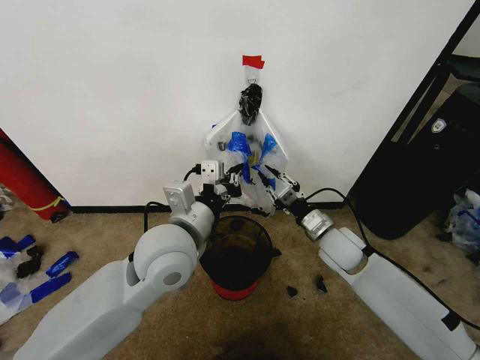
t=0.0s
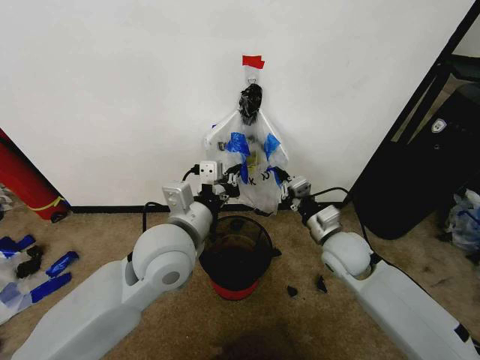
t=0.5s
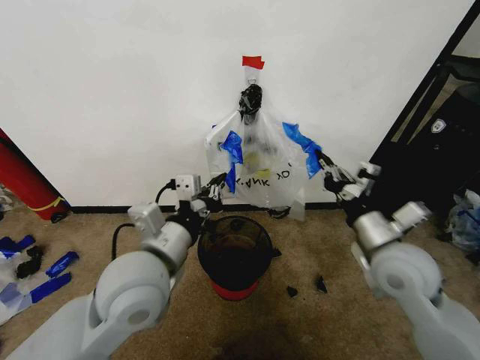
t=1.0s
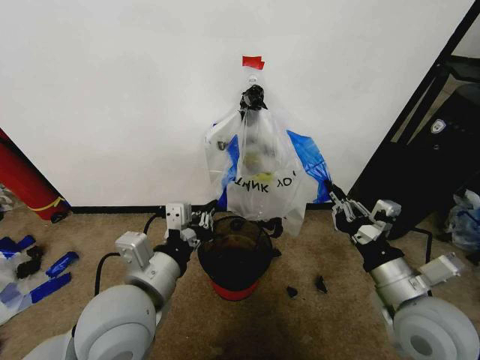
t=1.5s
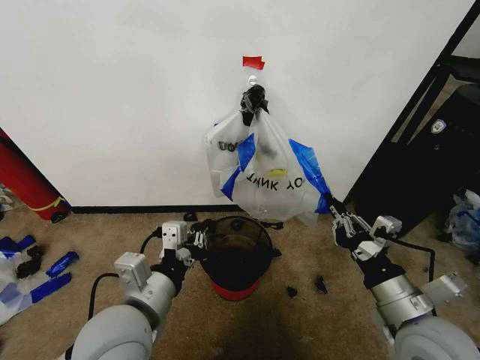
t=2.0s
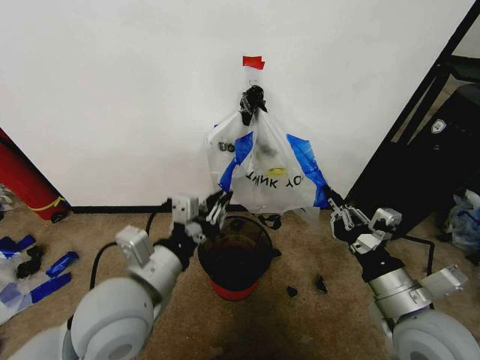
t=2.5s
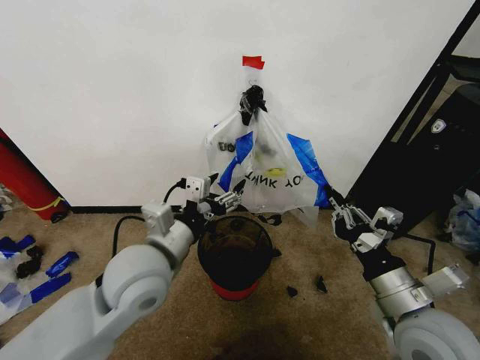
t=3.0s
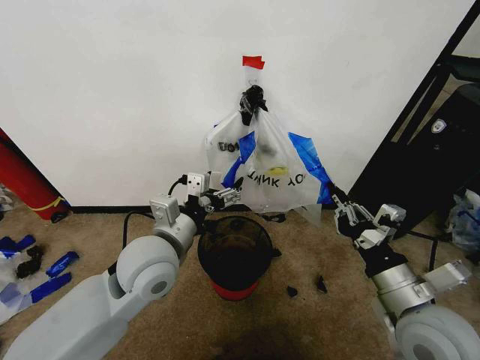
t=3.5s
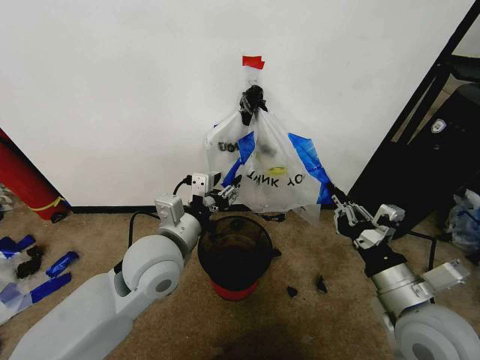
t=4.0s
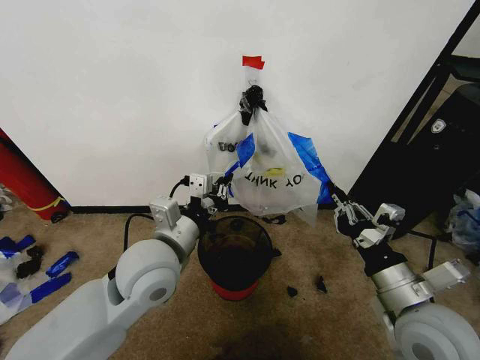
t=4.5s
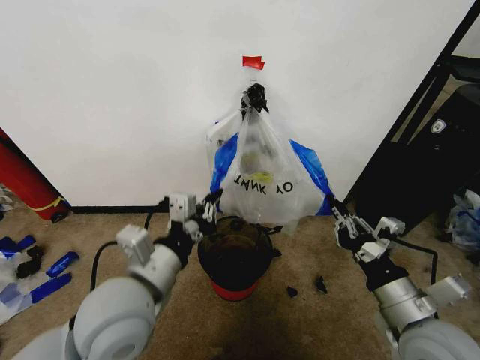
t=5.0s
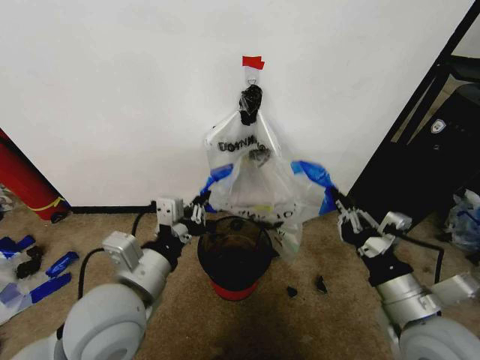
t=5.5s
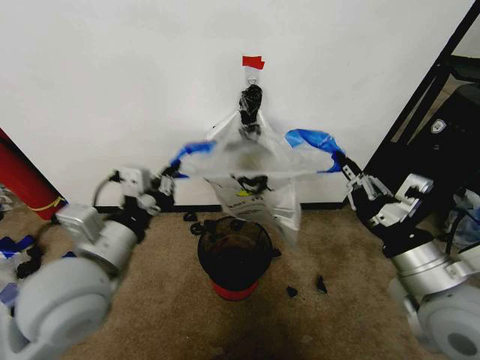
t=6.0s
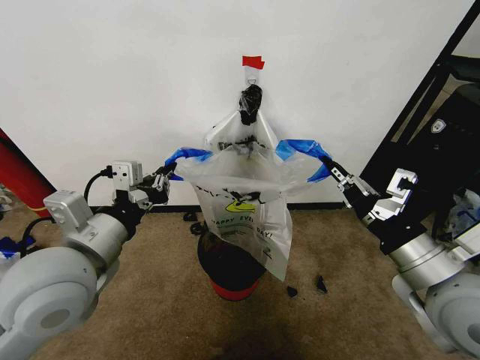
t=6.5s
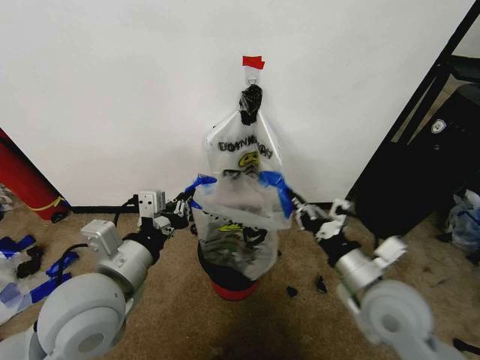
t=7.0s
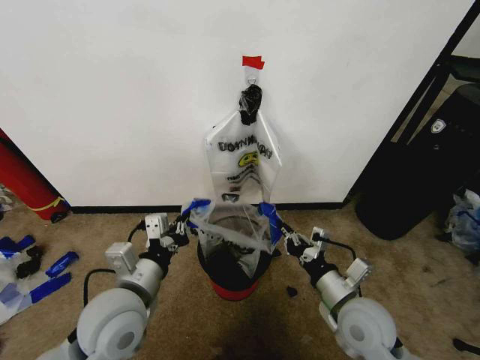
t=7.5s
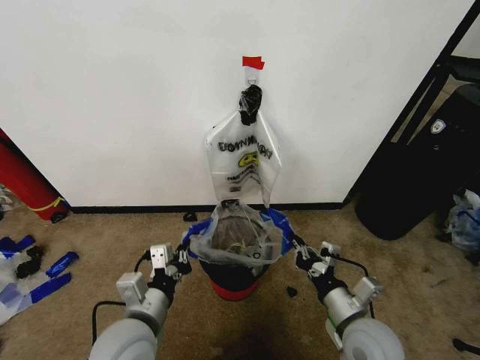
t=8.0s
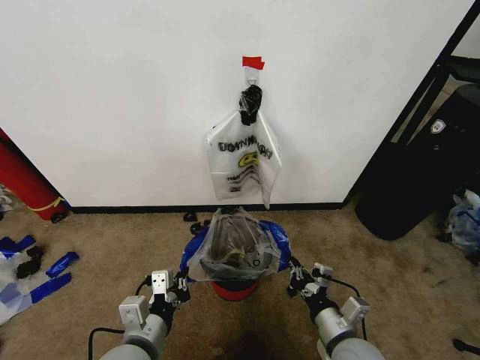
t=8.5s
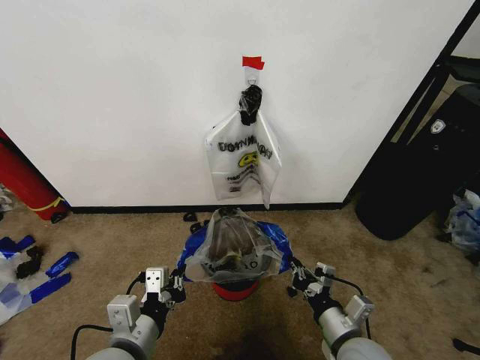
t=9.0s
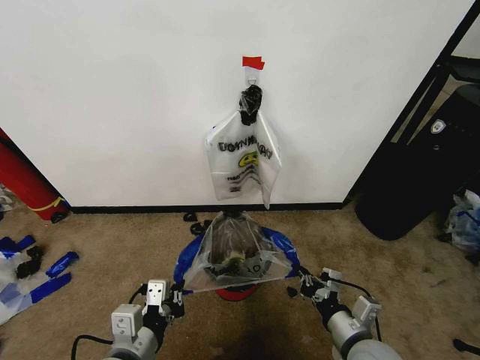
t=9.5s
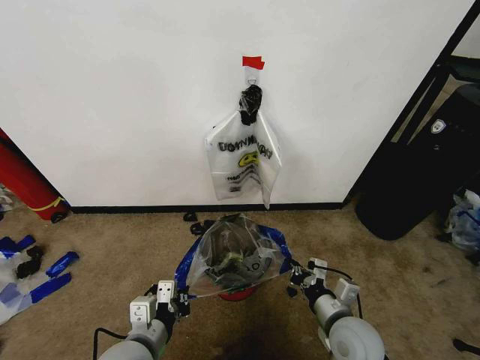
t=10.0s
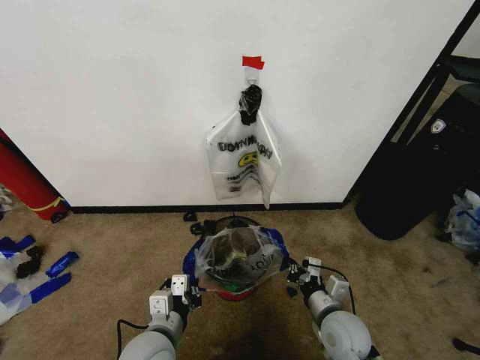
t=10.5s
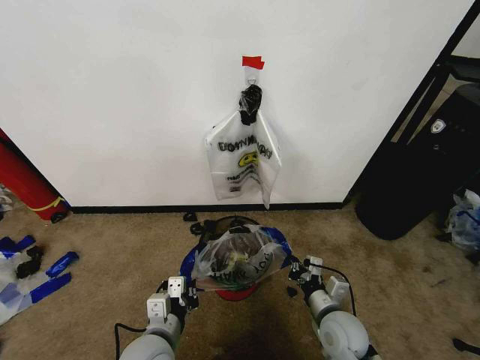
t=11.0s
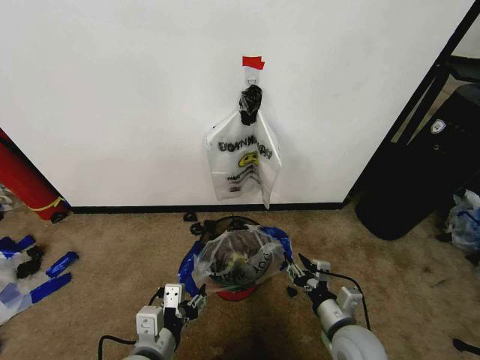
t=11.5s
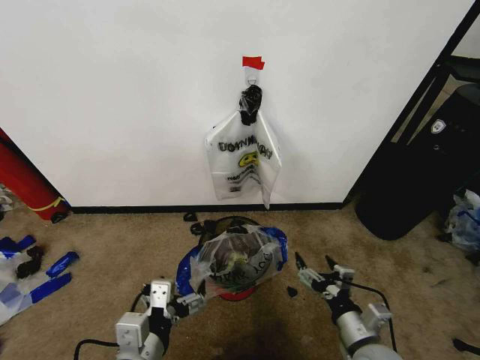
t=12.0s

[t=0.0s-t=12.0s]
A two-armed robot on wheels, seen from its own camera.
Task of the whole recording: Pick up the garbage bag from the wall and place it over the trash bin.
t=0.0s to t=2.0s: The right gripper shifts roughly 20 cm backward, while the left gripper shifts approximately 10 cm backward and to the left.
t=2.0s to t=4.0s: The left gripper heads forward, covering about 10 cm, and opens.
t=4.0s to t=6.0s: The left gripper heads backward, to the left and upward, covering roughly 10 cm, and closes; the right gripper is displaced upward by roughly 5 cm.
t=6.0s to t=8.0s: The two grippers go about 15 cm downward.
t=10.0s to t=12.0s: The left gripper changes place by approximately 5 cm, and opens up; the right gripper changes place by roughly 5 cm, and opens up.

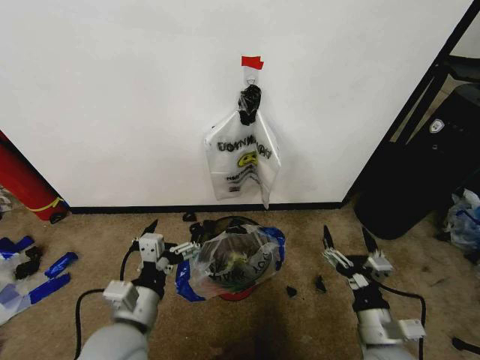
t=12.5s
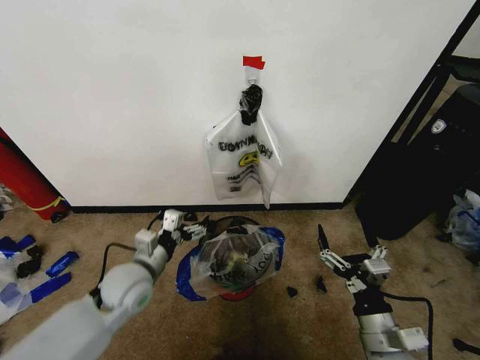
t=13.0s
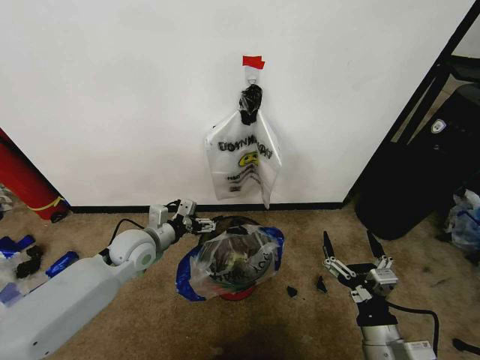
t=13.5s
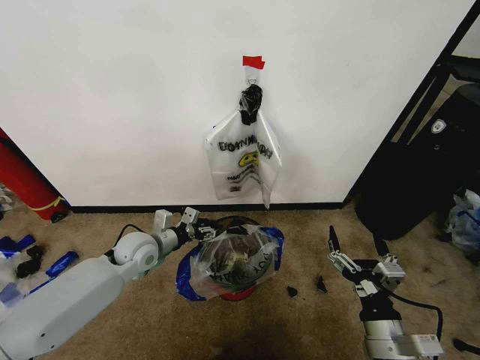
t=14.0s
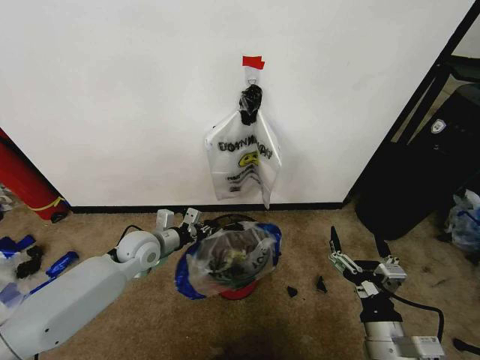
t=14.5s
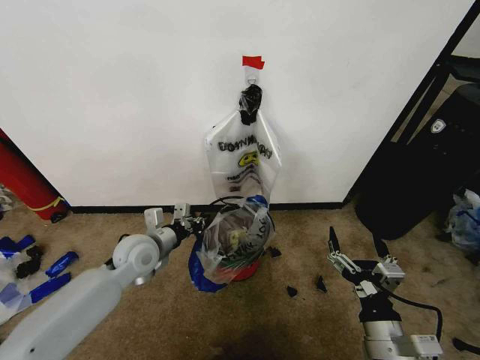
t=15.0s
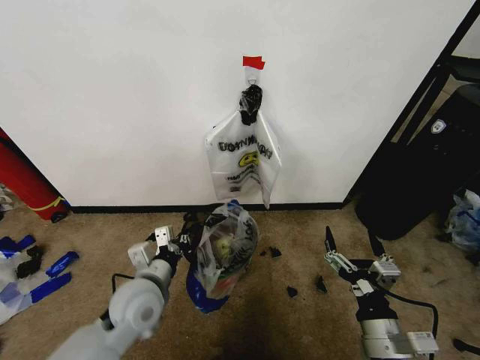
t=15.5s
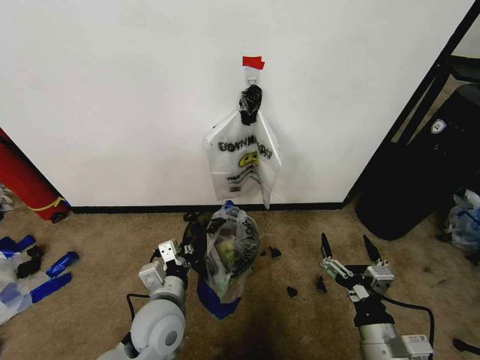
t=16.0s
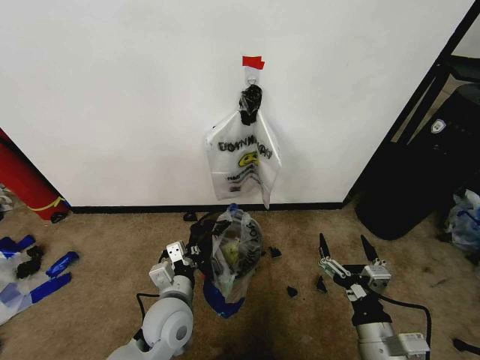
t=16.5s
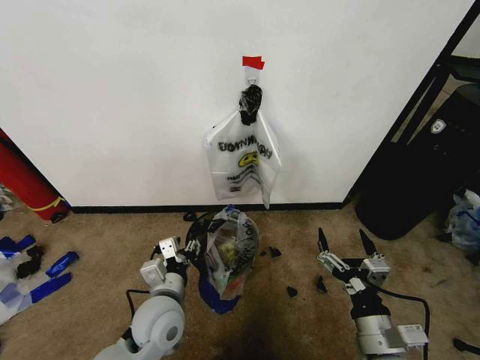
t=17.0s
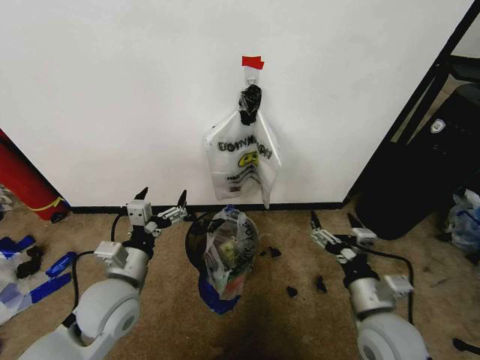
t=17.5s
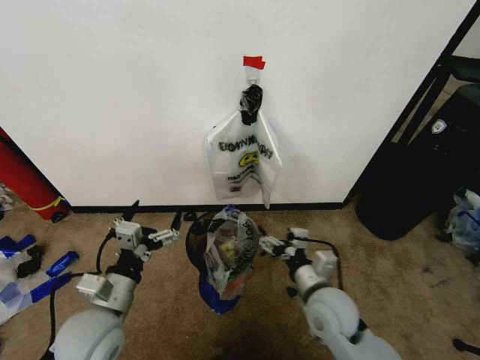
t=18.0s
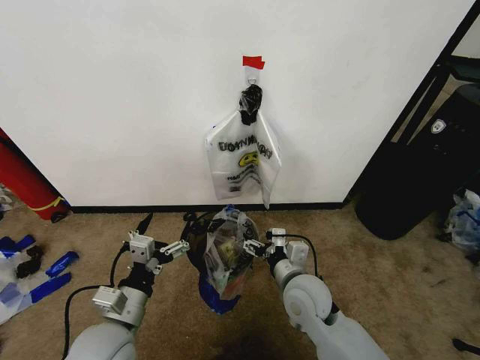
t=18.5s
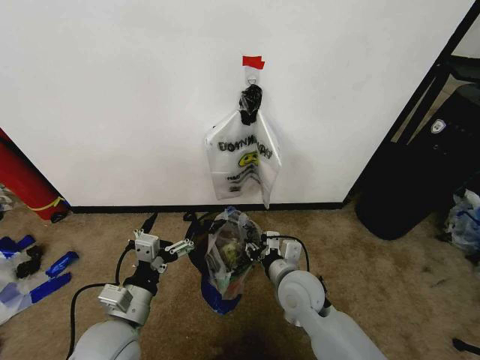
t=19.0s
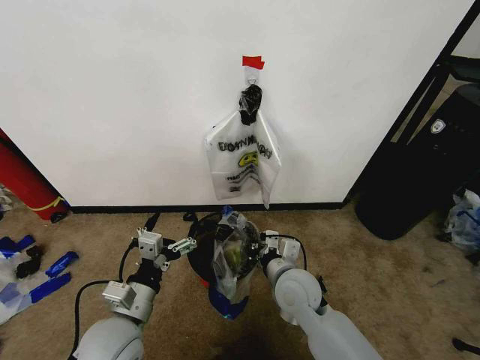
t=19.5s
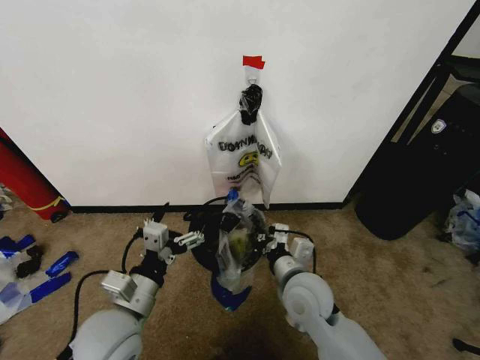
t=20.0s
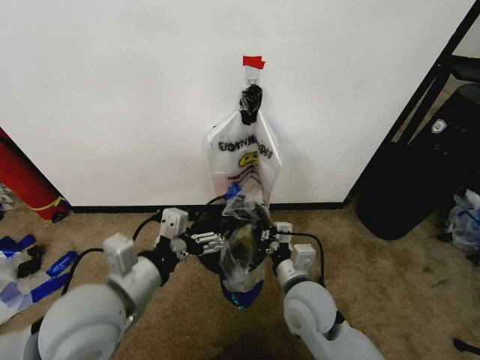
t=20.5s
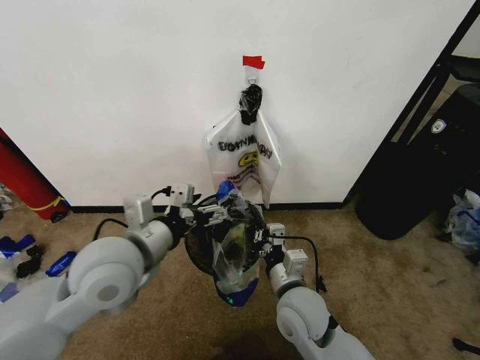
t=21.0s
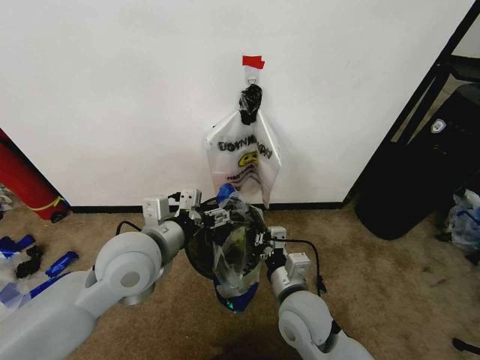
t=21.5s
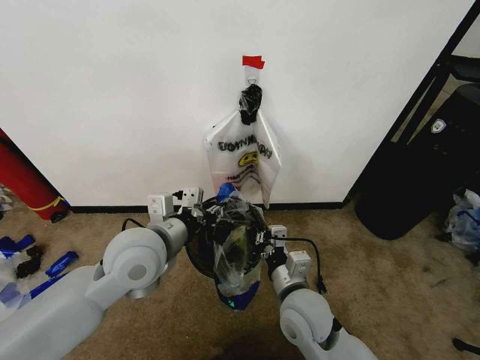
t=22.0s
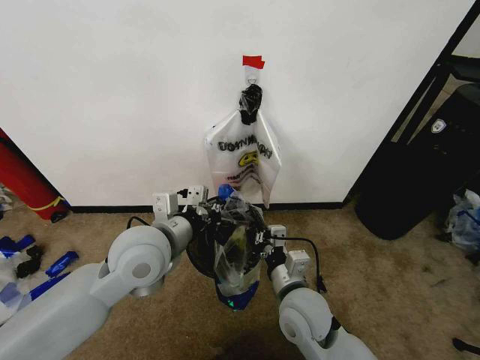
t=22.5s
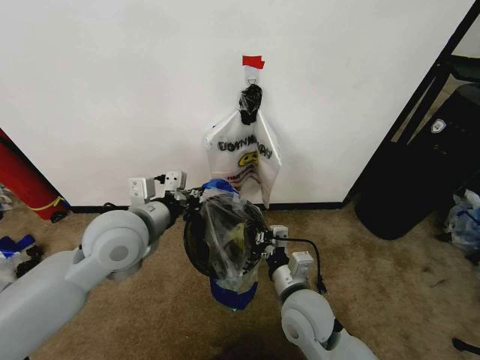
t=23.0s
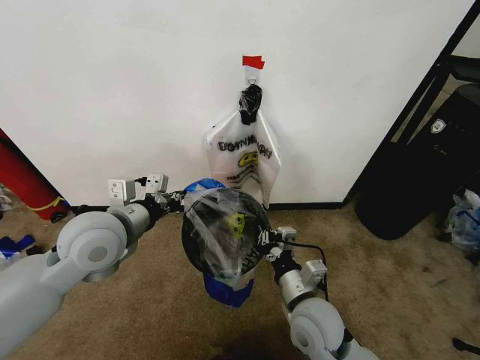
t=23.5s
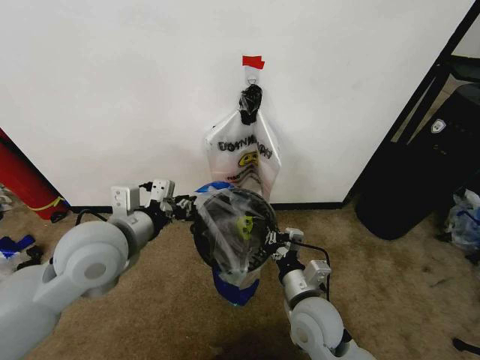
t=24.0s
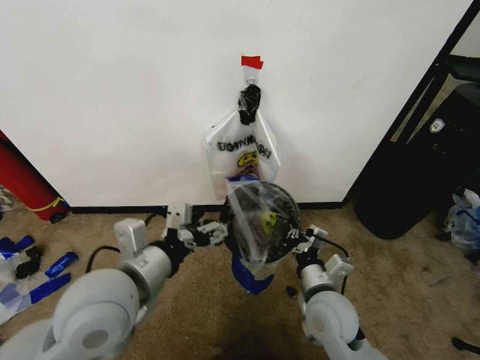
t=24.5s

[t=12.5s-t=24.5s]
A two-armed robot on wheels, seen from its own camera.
Task of the whole recording: Pick up the garbage bag from the wall and place it over the trash bin.
t=12.5s to t=14.5s: The left gripper travels forward by roughly 25 cm, and closes its fingers.
t=14.5s to t=16.5s: The left gripper heads backward and to the right, covering about 20 cm.
t=16.5s to t=18.5s: The right gripper shifts some 20 cm forward and to the left. Meanwhile the left gripper shifts approximately 10 cm to the left and backward, and opens.
t=18.5s to t=20.5s: The left gripper moves upward, roughly 15 cm; the right gripper closes its fingers.
t=20.5s to t=22.5s: The left gripper is displaced forward by about 10 cm, and closes up.
t=22.5s to t=24.5s: The right gripper shifts about 5 cm to the right. Meanwhile the left gripper travels backward by about 10 cm, and opens up.

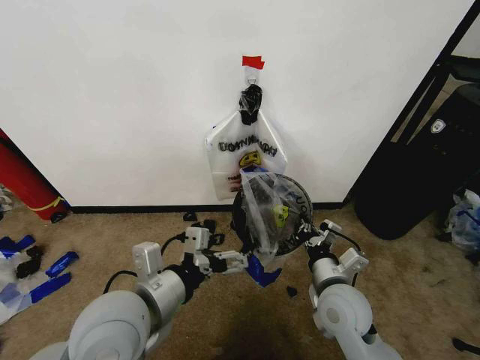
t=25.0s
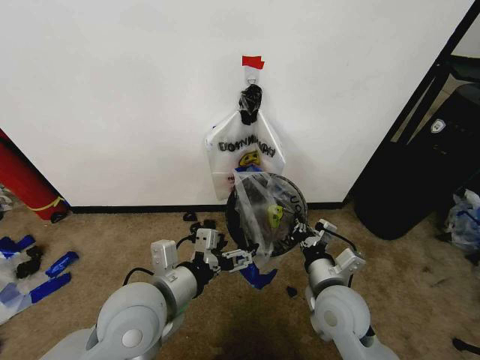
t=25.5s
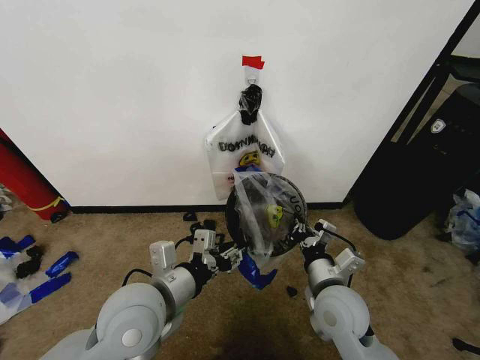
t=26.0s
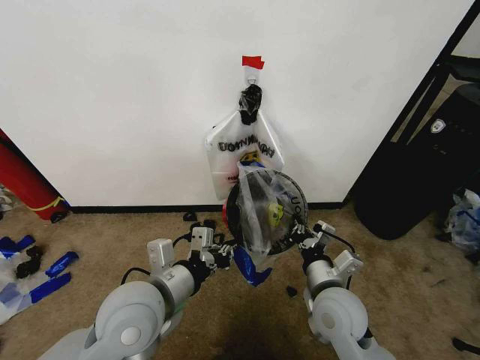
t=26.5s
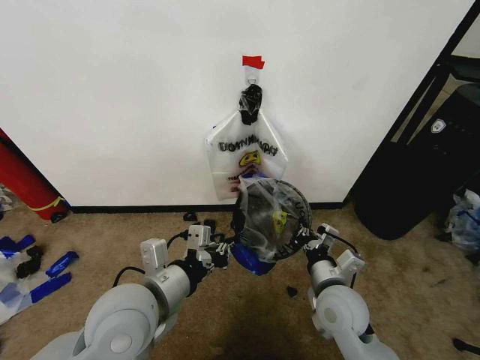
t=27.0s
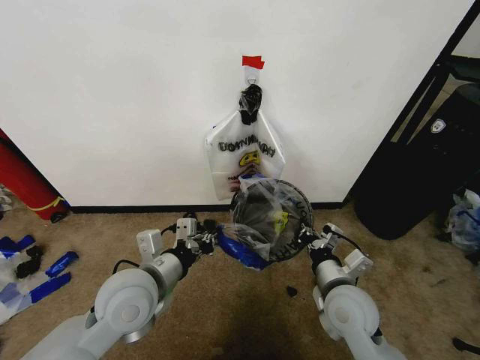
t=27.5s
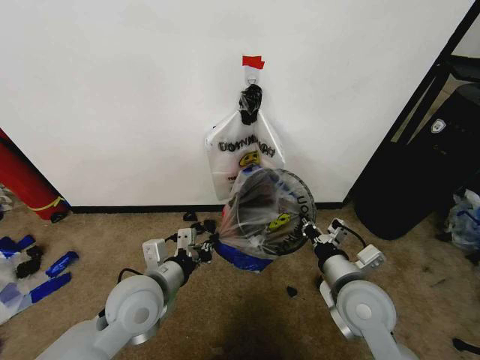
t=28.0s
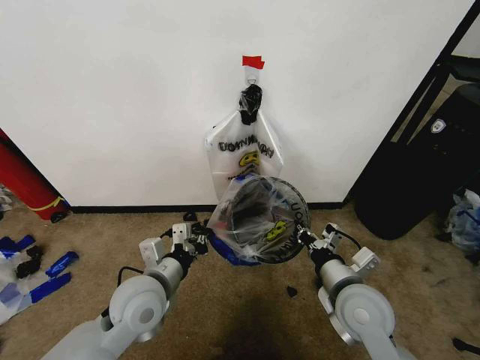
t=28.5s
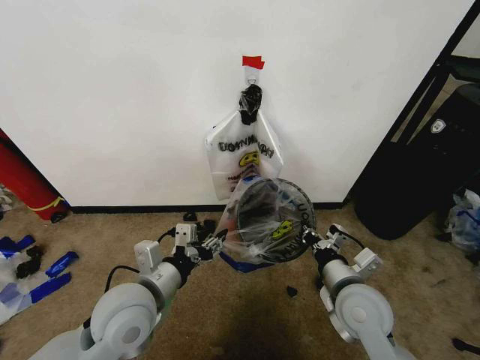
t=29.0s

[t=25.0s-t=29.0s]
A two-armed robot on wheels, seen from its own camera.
Task of the whole recording: Pick up the garbage bag from the wall and place it over the trash bin.
t=25.0s to t=27.0s: The left gripper closes.
t=27.0s to t=29.0s: The left gripper opens its fingers.
